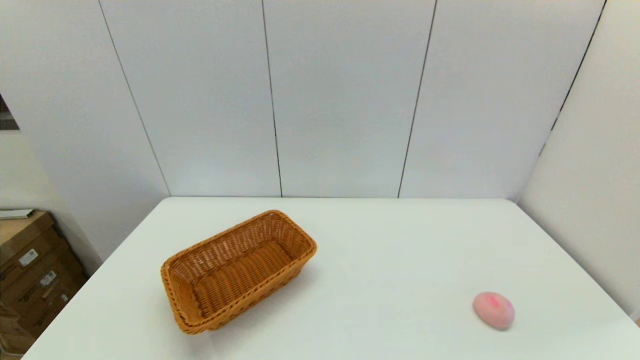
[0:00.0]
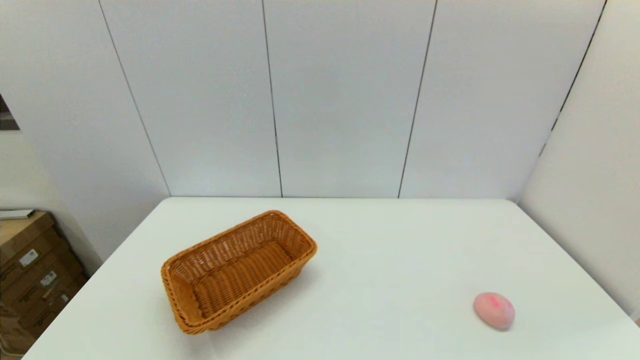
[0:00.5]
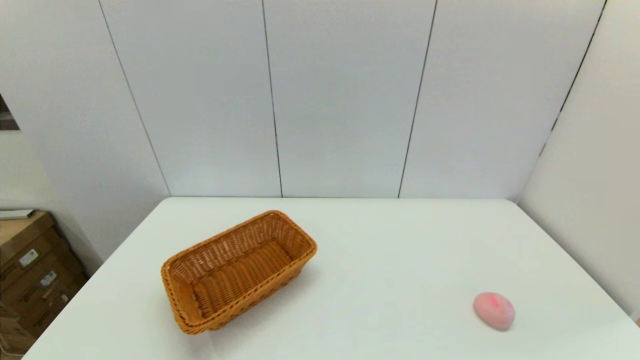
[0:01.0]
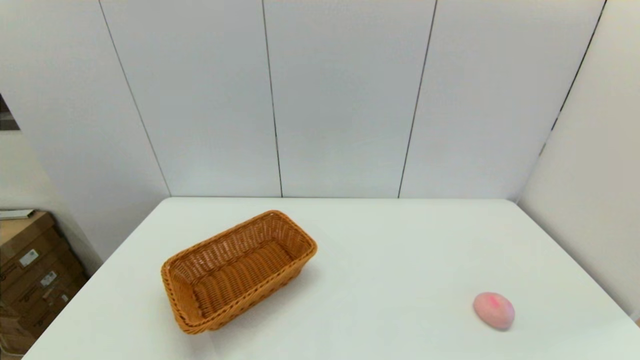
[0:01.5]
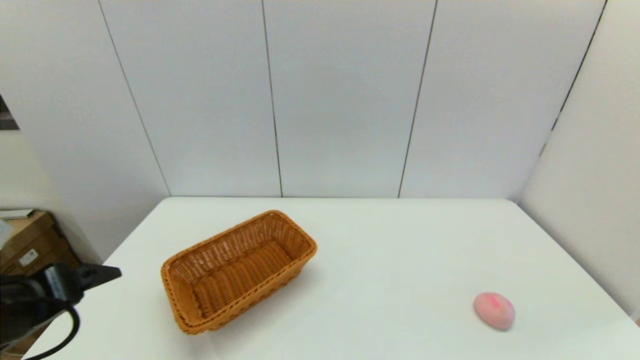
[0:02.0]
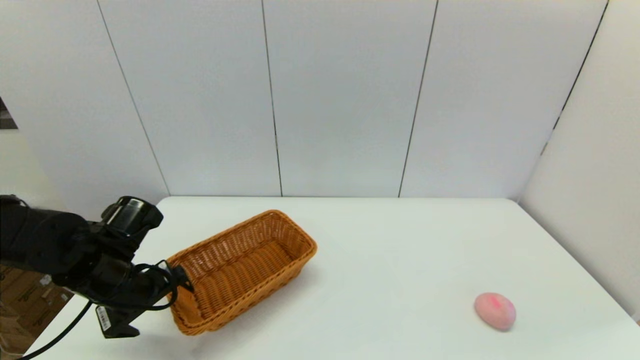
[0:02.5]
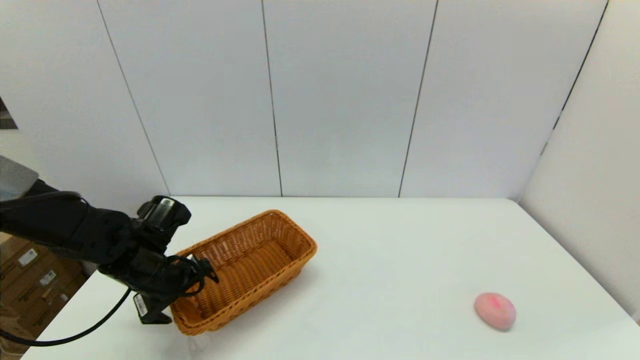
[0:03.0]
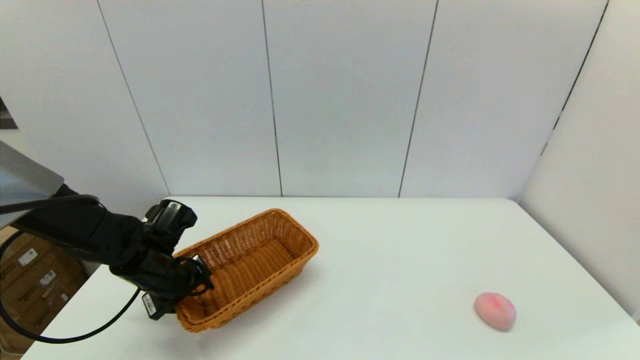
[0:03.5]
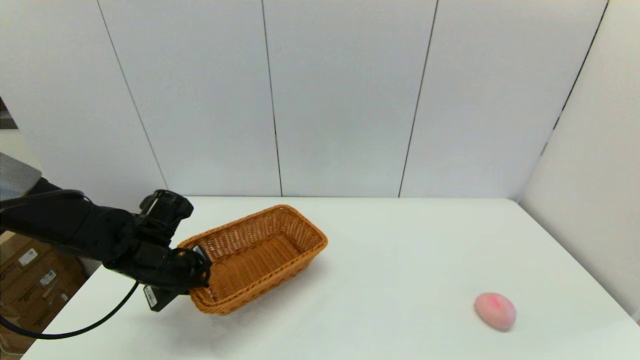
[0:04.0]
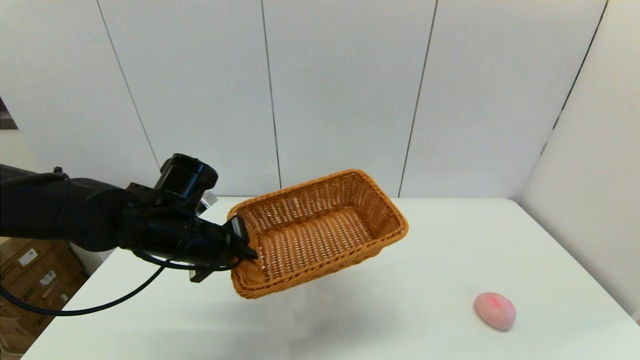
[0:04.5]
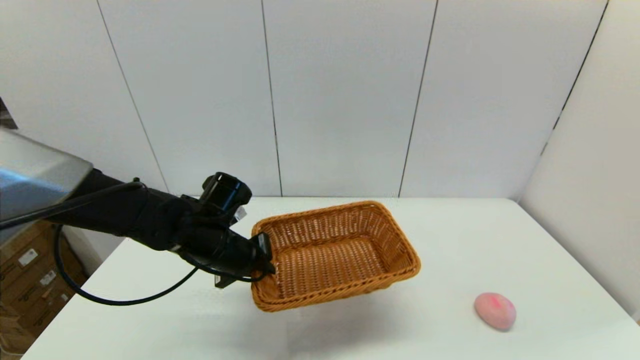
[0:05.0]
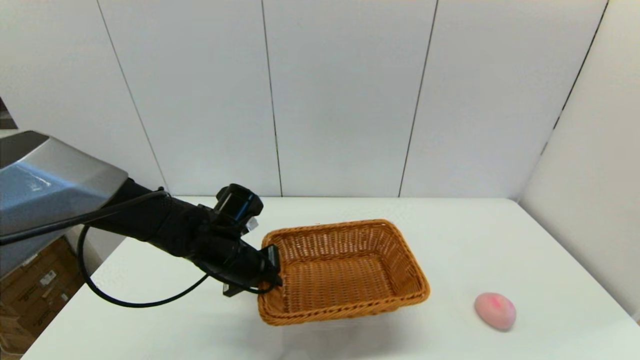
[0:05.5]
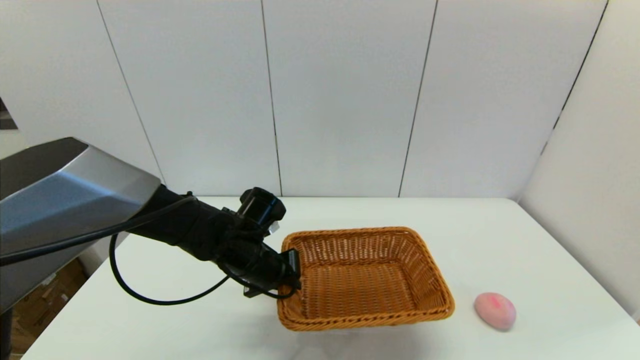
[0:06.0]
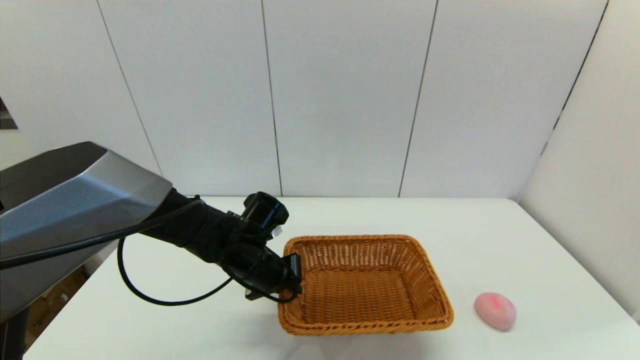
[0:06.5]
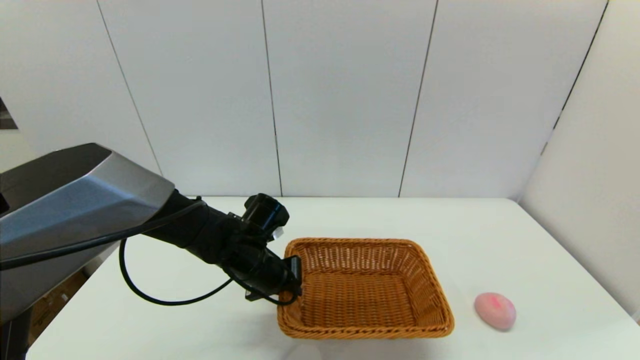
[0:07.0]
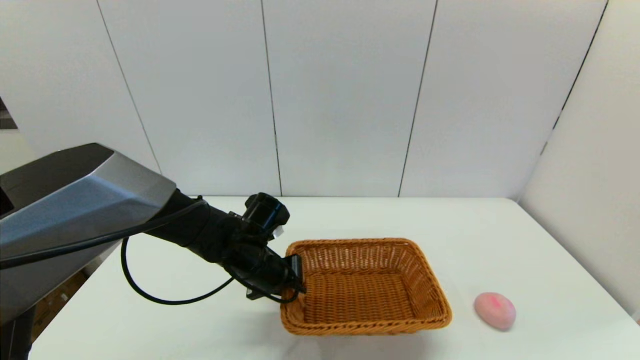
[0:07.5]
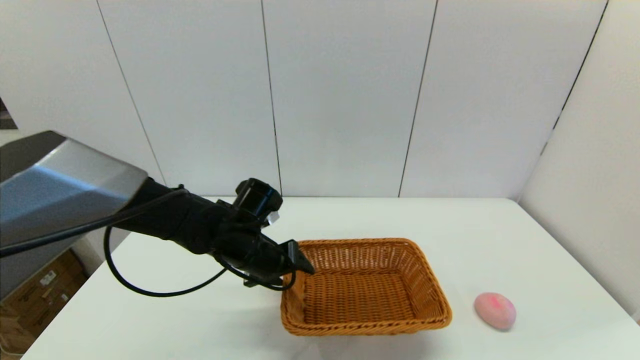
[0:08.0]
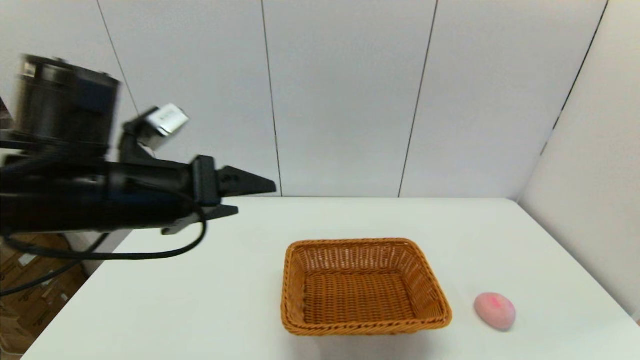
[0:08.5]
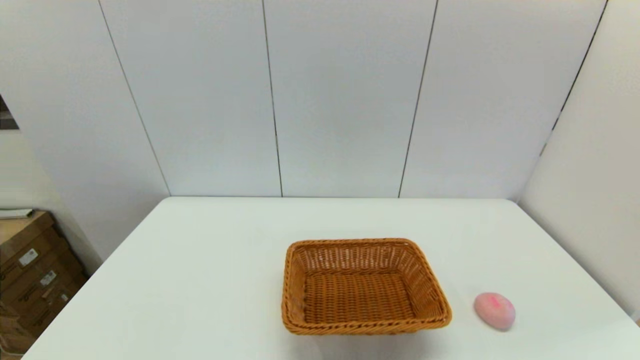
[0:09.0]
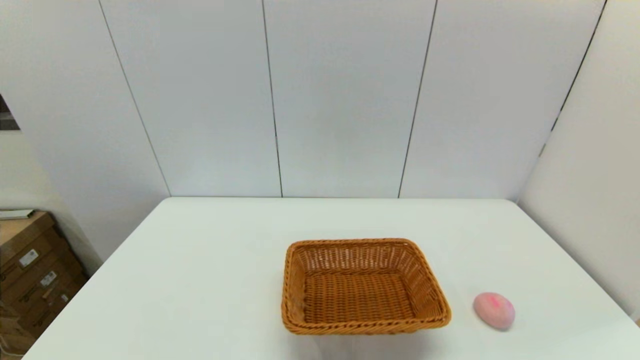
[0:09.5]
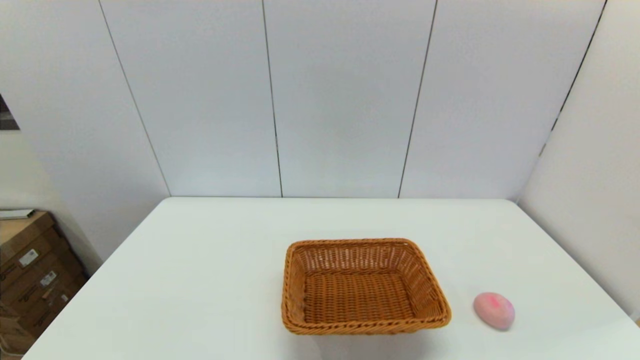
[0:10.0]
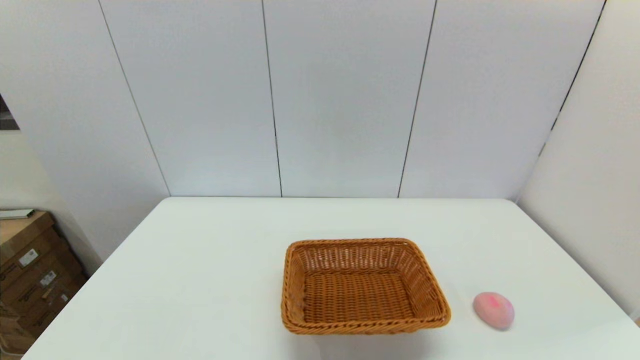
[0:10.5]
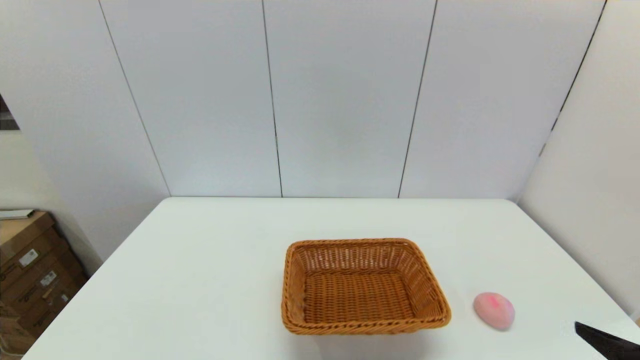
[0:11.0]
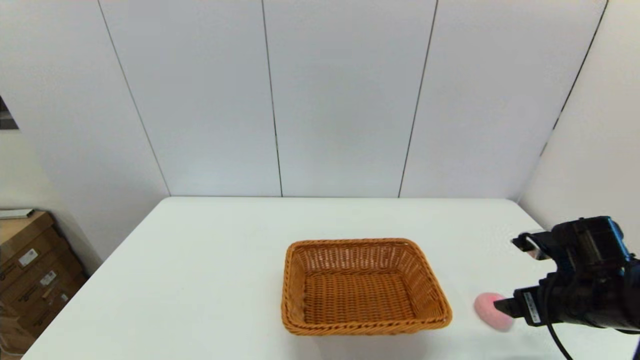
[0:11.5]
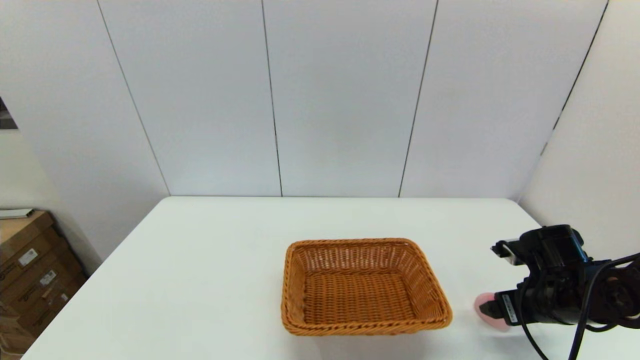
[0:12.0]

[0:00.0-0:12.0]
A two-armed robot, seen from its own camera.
Step, 0:00.0 to 0:03.5: Grasp the light basket with the left gripper.
Step, 0:04.0 to 0:07.5: Place the light basket on the middle of the table with the left gripper.
0:00.0 to 0:02.0: The left gripper heads forward and upward, covering roughly 20 cm.
0:02.0 to 0:04.0: The left gripper shifts approximately 15 cm forward and downward, and closes.
0:04.0 to 0:06.0: The left gripper shifts some 15 cm to the right.
0:06.0 to 0:08.0: The left gripper opens up.
0:08.0 to 0:10.0: The left gripper moves backward and to the left, roughly 40 cm.
0:10.0 to 0:12.0: The right gripper moves forward, some 25 cm.

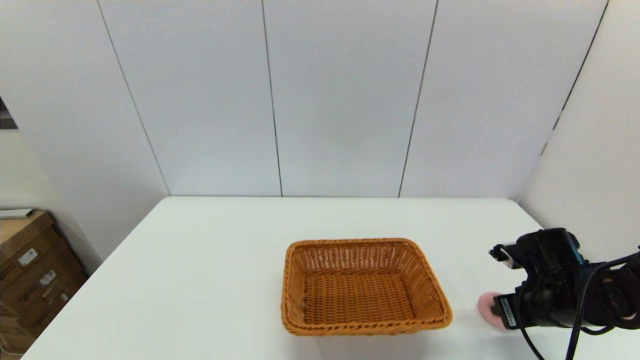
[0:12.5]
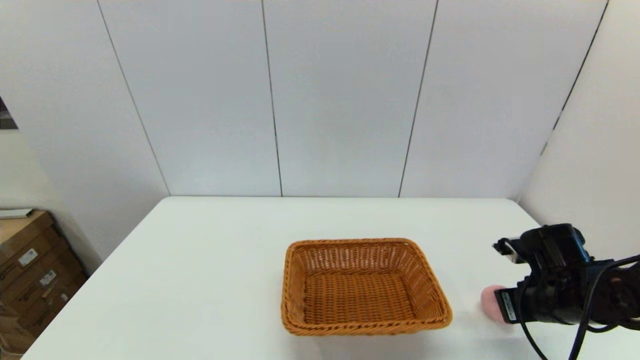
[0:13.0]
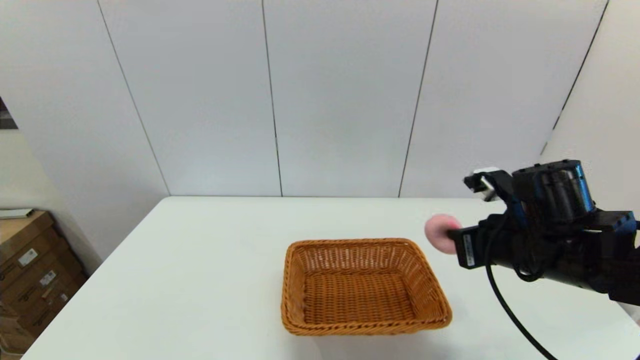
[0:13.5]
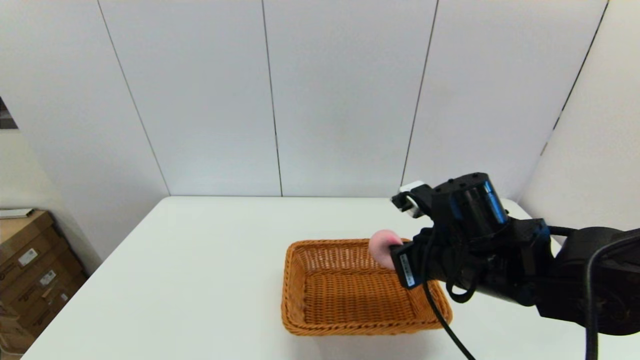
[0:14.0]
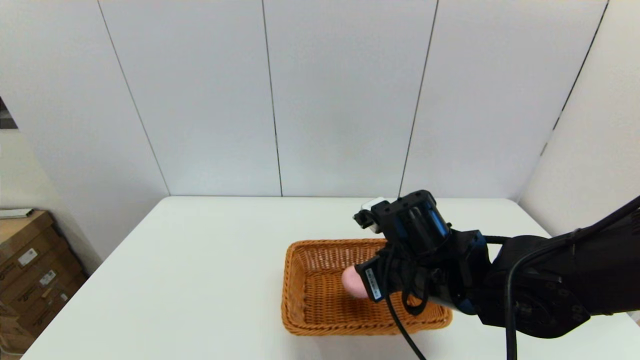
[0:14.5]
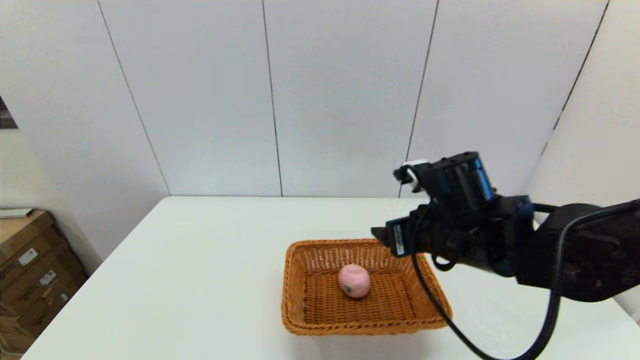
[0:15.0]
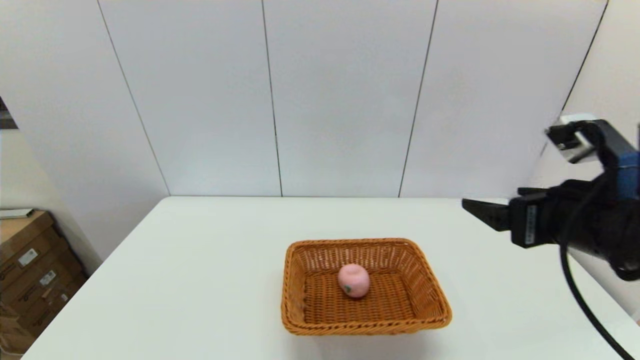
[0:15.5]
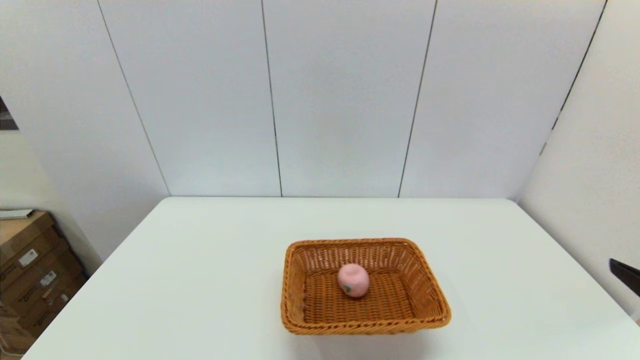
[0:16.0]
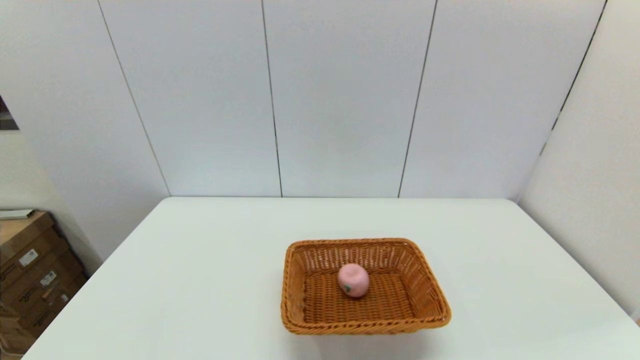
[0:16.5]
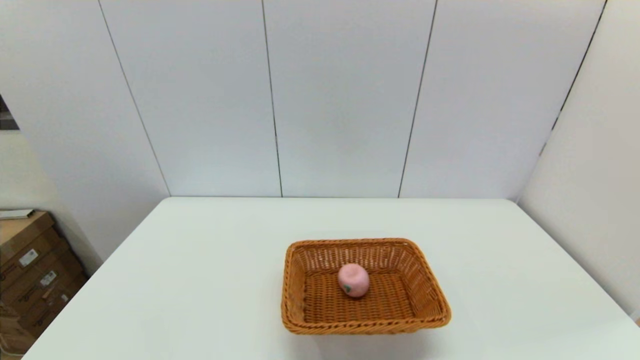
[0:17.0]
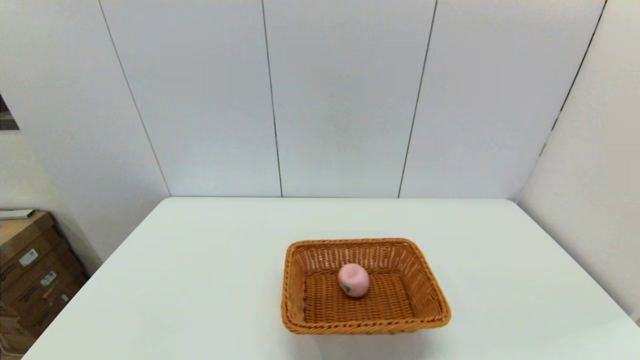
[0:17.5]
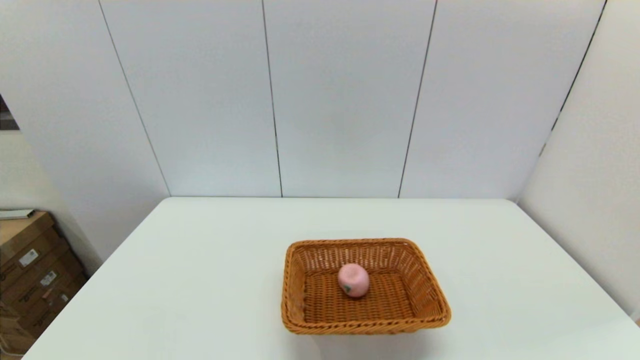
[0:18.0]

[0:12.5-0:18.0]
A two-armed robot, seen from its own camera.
Step, 0:13.0 to 0:14.5: Place the peach into the light basket with the right gripper.
0:12.5 to 0:14.5: The right gripper is displaced to the left by roughly 20 cm, and closes, then opens again.
0:14.5 to 0:16.0: The right gripper goes approximately 30 cm to the right, backward and upward, and opens up.

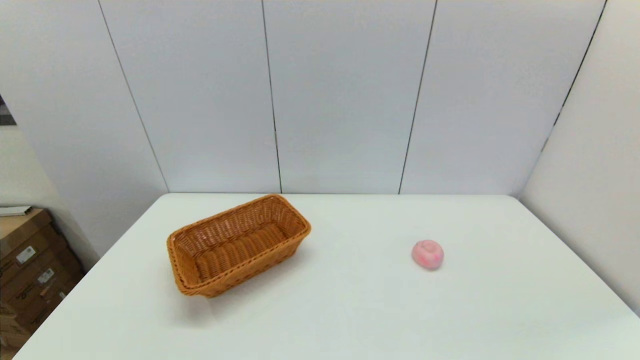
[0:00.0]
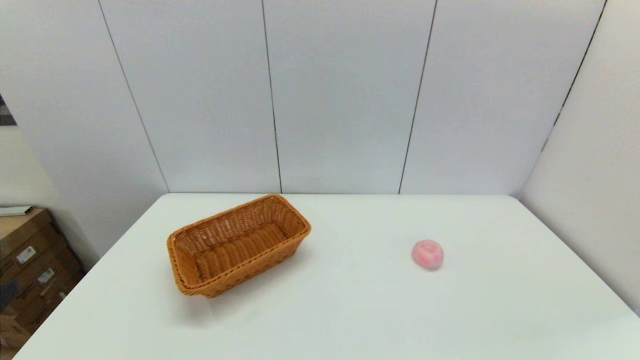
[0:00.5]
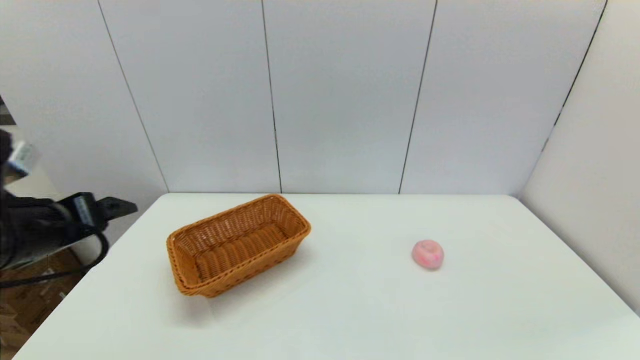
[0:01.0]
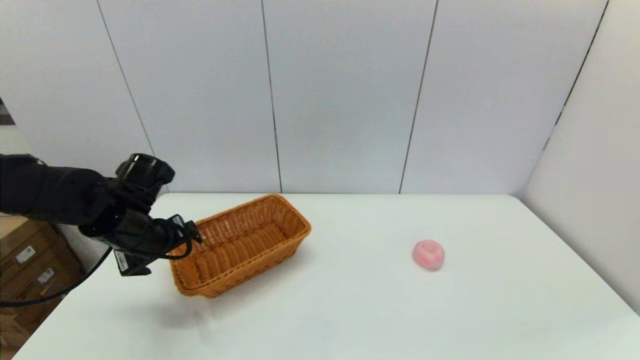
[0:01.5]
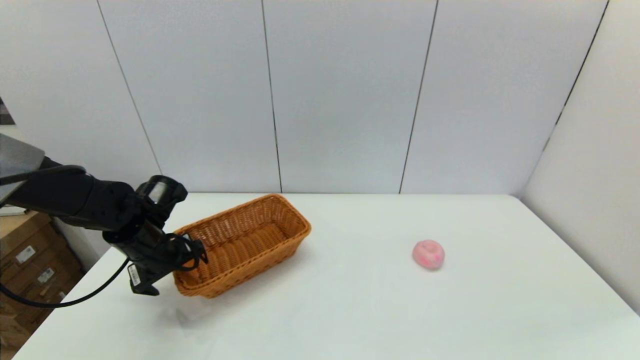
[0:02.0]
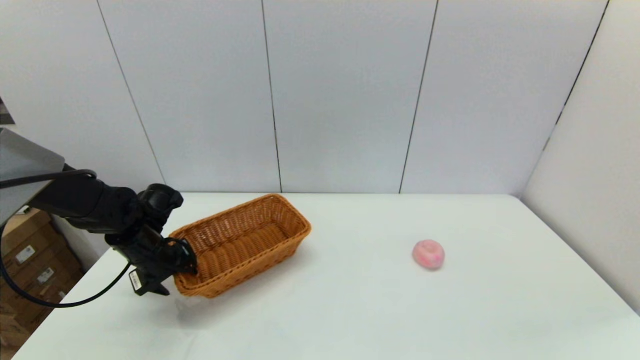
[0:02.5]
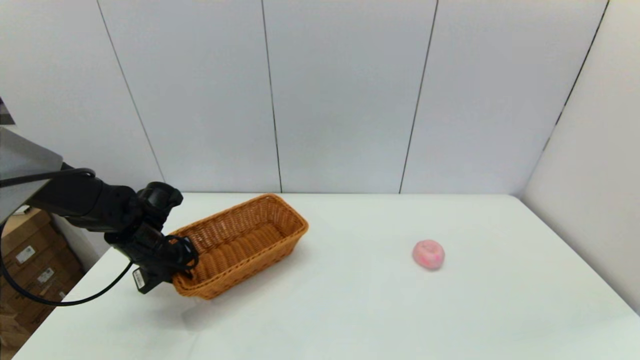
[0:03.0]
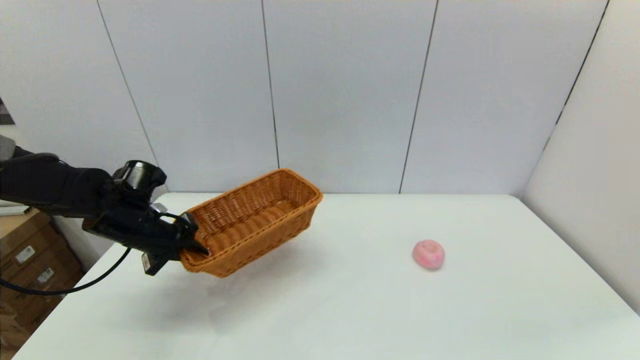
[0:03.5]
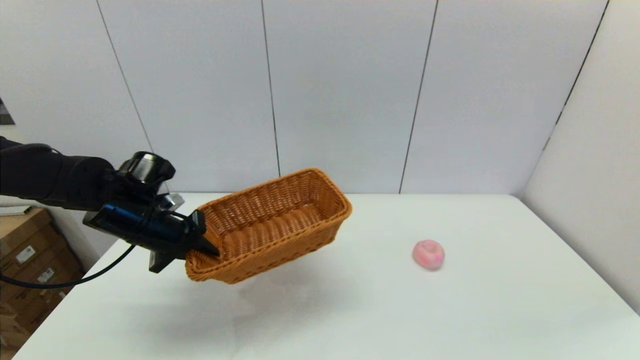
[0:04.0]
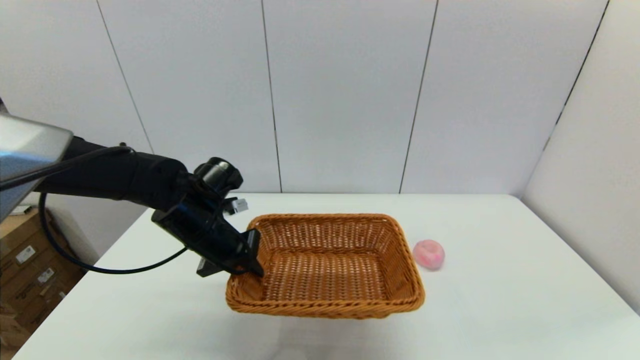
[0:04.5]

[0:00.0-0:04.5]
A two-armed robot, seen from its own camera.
Step, 0:00.0 to 0:02.5: Grasp the light basket with the left gripper.
0:00.0 to 0:02.0: The left gripper goes approximately 35 cm forward.
0:02.0 to 0:04.5: The left gripper shifts approximately 10 cm to the right, and closes up.
